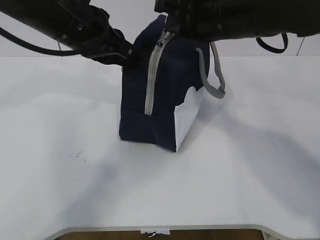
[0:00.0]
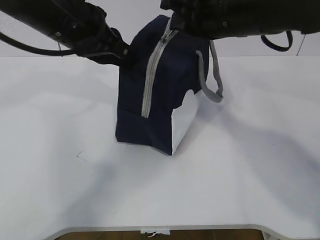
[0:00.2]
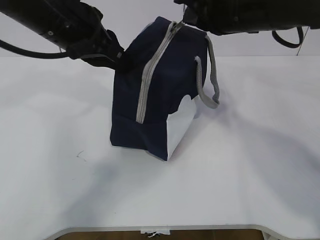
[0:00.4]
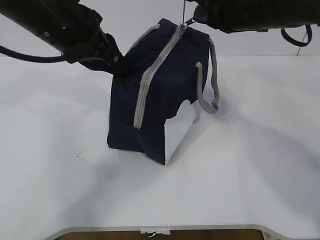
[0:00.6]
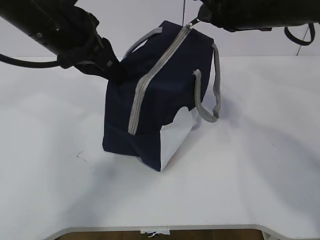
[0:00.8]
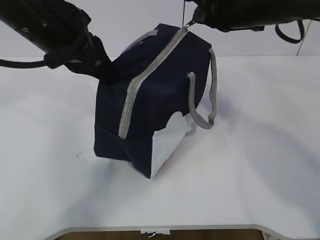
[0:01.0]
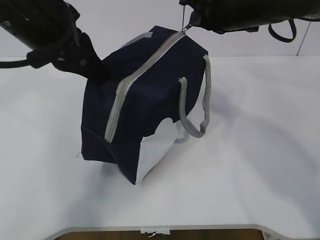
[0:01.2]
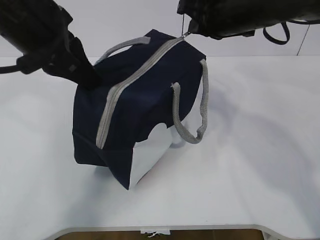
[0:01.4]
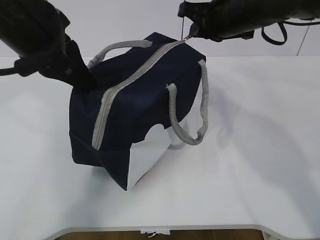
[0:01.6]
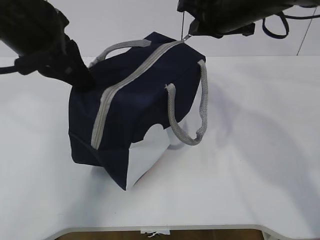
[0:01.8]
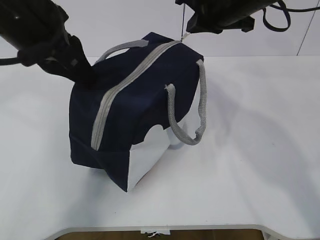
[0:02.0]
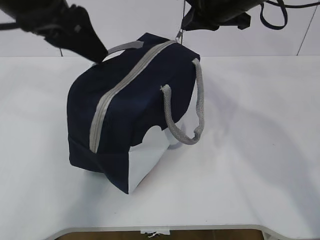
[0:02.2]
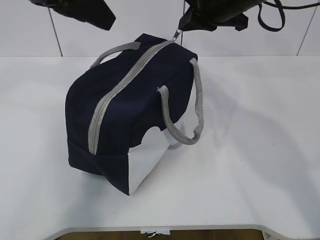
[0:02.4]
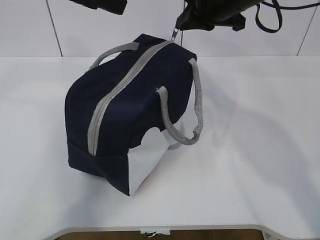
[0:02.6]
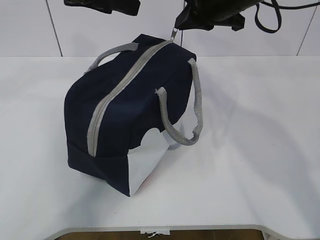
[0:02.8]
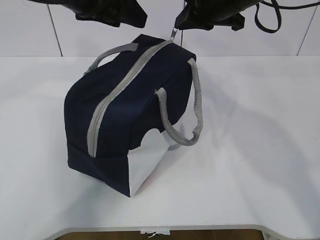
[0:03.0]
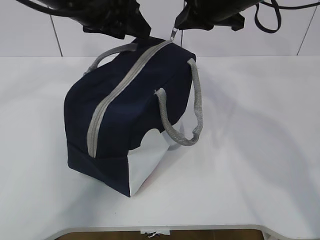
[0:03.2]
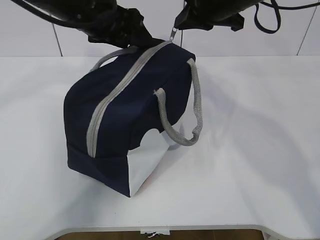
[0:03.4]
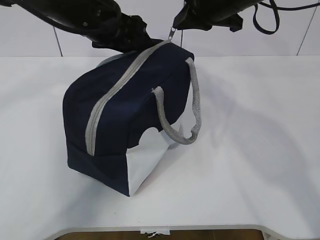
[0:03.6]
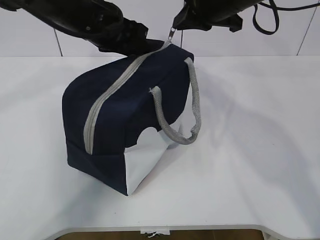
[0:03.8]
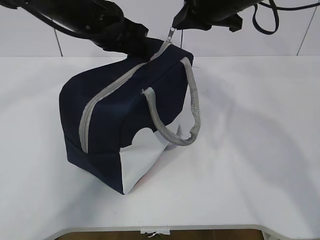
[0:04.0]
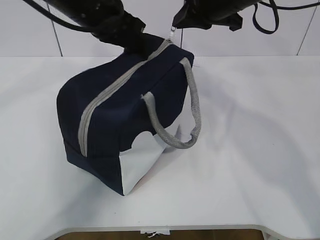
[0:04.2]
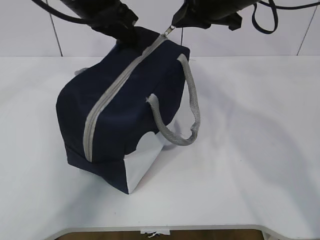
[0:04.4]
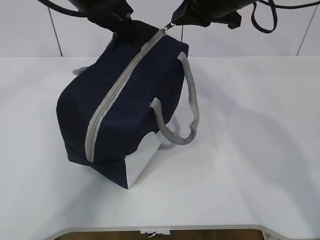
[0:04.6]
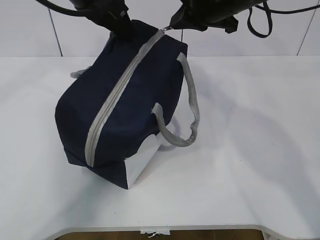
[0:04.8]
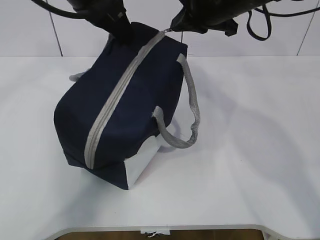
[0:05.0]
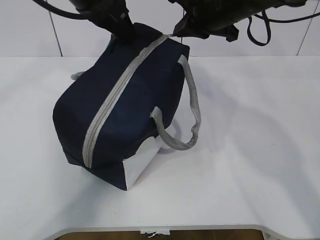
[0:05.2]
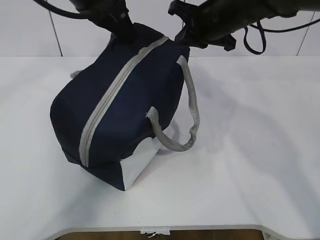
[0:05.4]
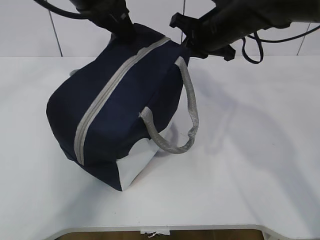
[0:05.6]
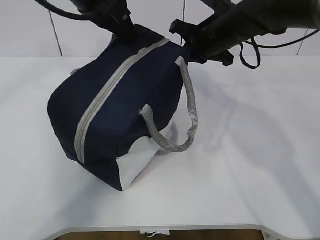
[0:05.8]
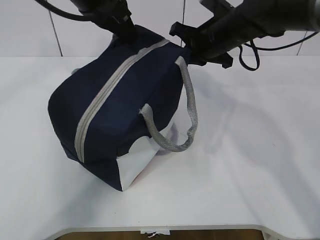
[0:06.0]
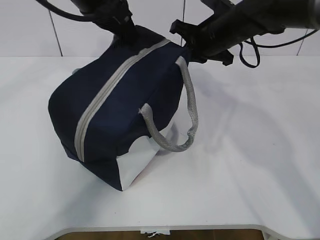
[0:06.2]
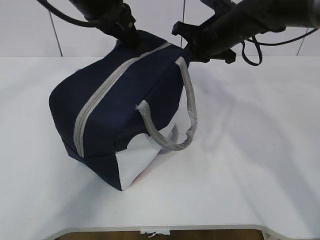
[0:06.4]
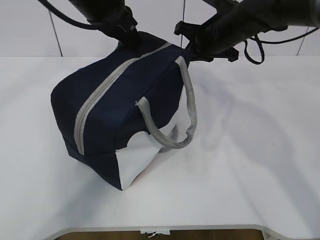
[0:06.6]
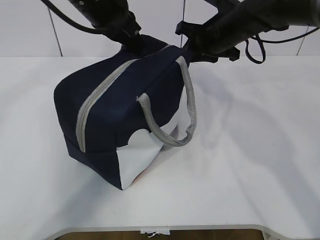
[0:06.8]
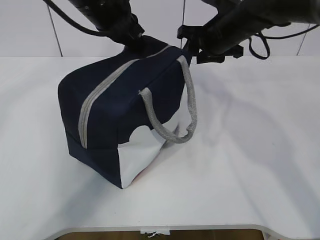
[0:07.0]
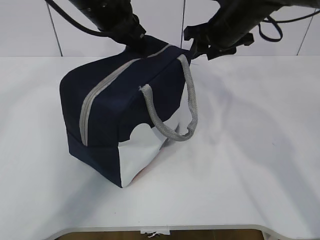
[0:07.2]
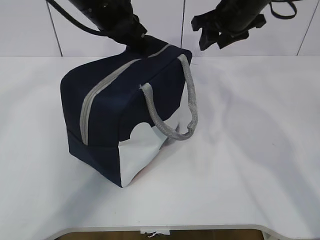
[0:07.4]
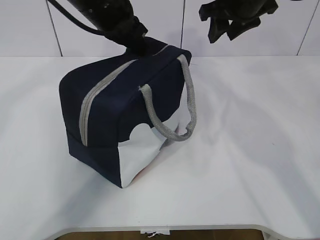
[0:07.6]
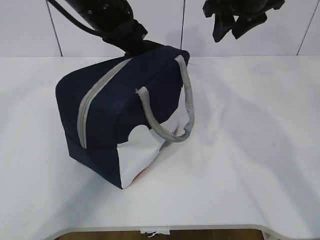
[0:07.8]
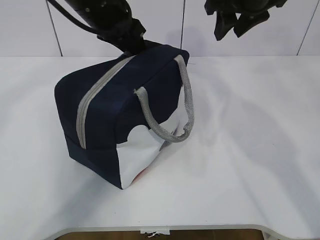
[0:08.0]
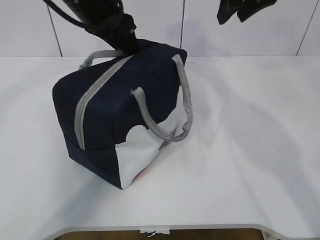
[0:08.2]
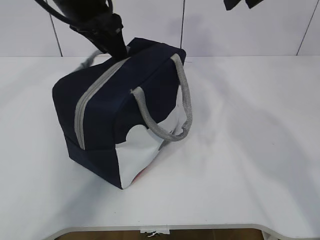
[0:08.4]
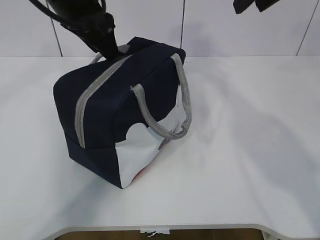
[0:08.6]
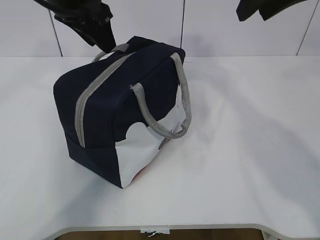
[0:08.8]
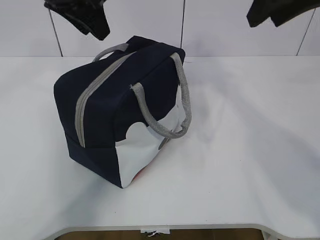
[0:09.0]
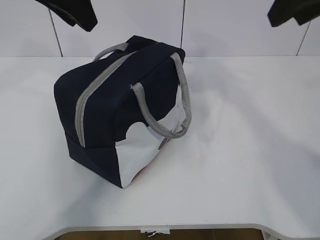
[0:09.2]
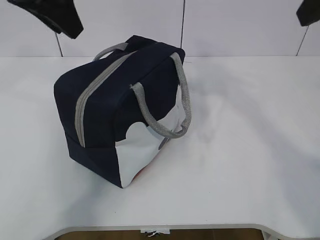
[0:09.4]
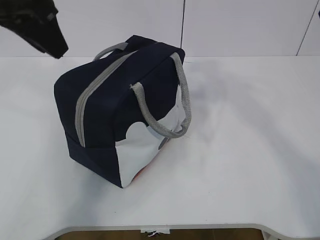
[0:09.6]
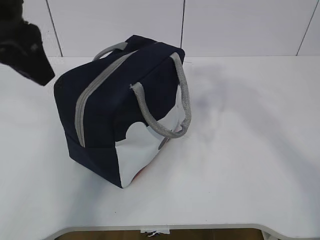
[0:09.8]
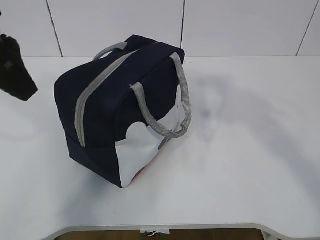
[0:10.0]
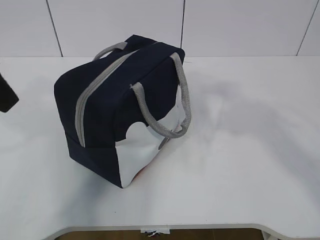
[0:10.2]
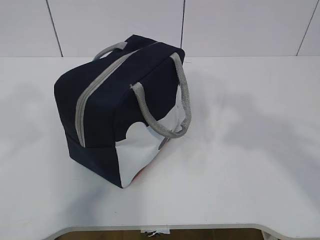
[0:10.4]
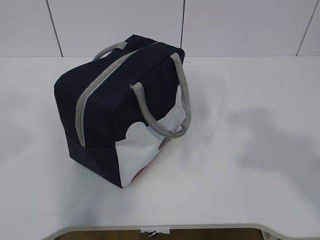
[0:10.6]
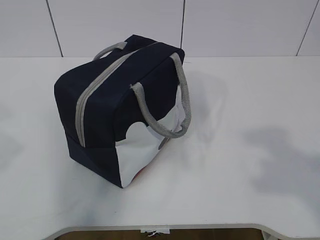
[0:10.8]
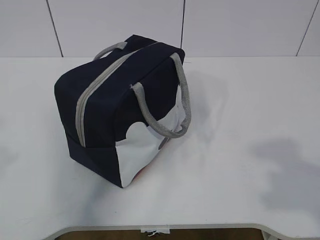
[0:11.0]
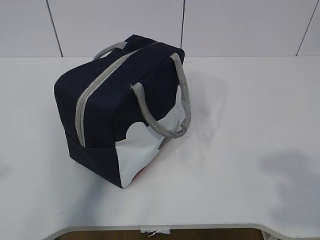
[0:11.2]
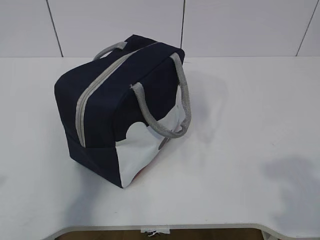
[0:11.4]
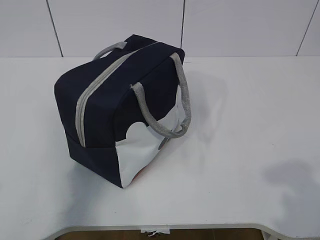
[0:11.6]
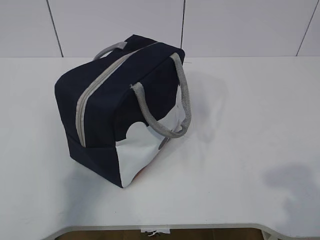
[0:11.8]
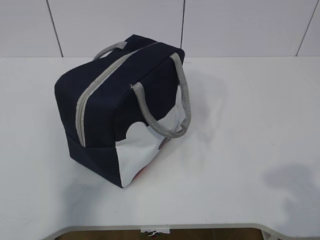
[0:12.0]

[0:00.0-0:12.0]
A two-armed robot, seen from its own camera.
0:00.0 to 0:01.6: The left gripper is displaced backward by approximately 5 cm. The right gripper heads forward, covering about 10 cm.
0:01.6 to 0:03.0: The left gripper shifts roughly 5 cm forward, and opens.
0:03.0 to 0:04.4: The left gripper closes its fingers.
0:04.4 to 0:06.0: The right gripper goes about 10 cm downward.
0:06.0 to 0:07.6: The left gripper changes place by approximately 5 cm. Meanwhile the right gripper shifts some 10 cm upward, and opens.
0:07.6 to 0:09.0: The left gripper heads upward and backward, covering about 10 cm, and opens its fingers; the right gripper is displaced backward and upward by roughly 15 cm.
0:09.0 to 0:10.4: The left gripper heads backward and to the left, covering roughly 20 cm, while the right gripper travels backward by roughly 20 cm.
0:10.4 to 0:12.0: The right gripper moves downward and backward, approximately 15 cm; the left gripper moves backward, downward and to the left, approximately 20 cm.

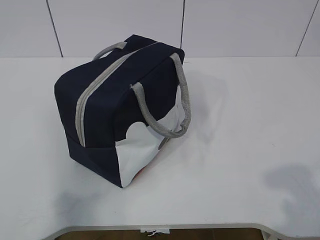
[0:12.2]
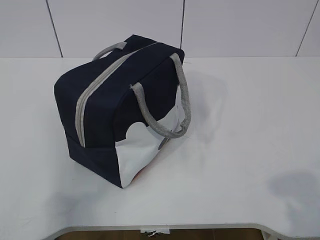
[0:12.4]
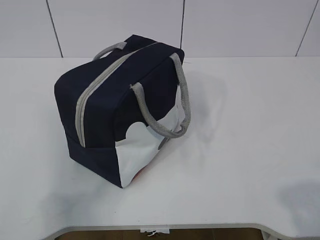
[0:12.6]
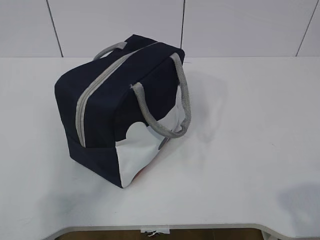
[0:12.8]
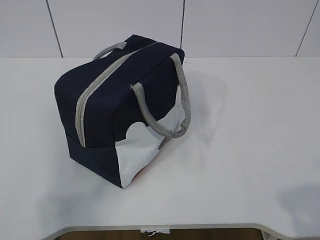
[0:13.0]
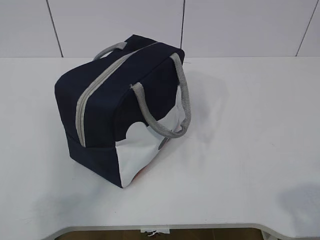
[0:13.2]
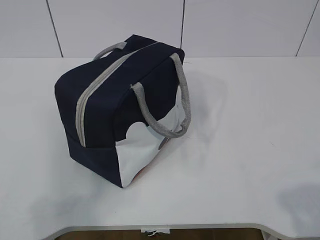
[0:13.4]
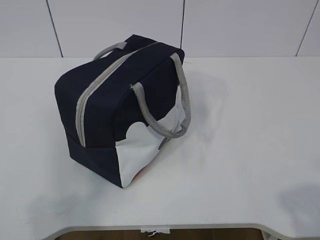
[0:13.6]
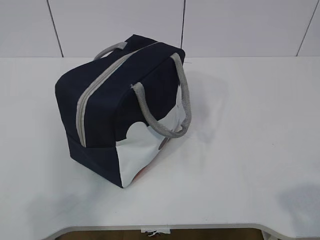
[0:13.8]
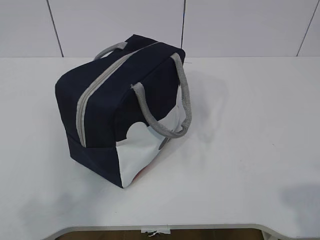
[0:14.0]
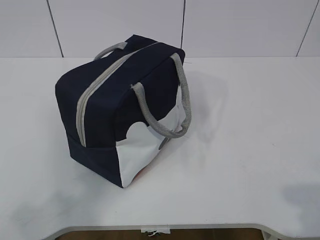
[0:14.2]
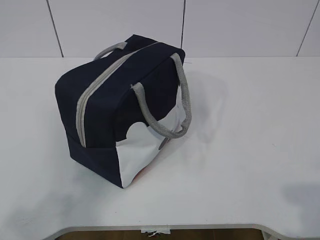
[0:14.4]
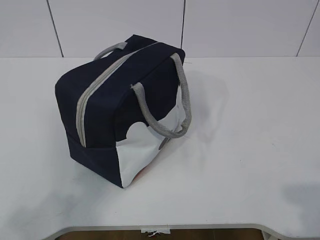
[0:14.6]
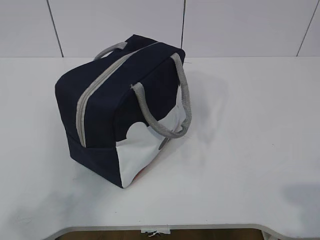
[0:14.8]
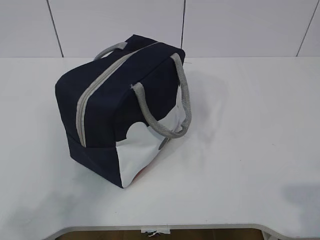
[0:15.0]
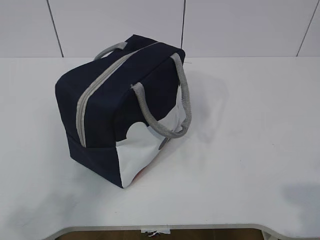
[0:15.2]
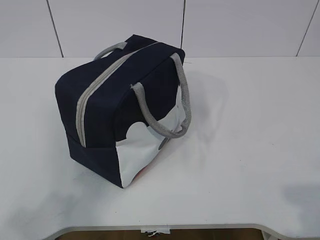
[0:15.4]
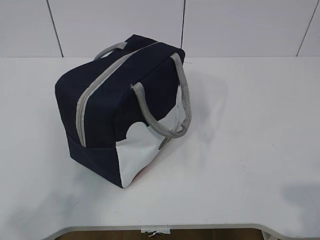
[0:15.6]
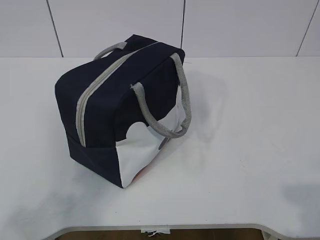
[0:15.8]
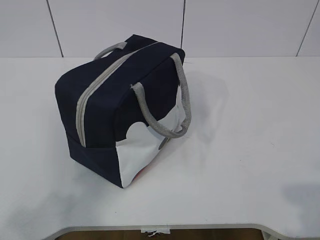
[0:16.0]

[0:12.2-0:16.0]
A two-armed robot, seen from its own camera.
0:14.8 to 0:16.0: Both grippers stay put.
